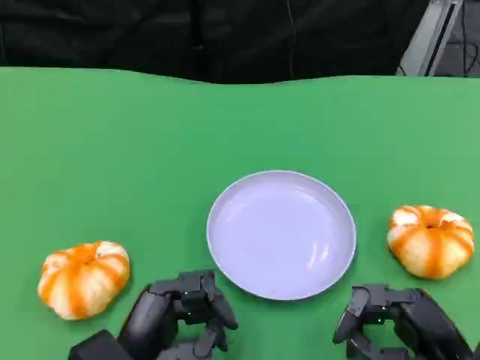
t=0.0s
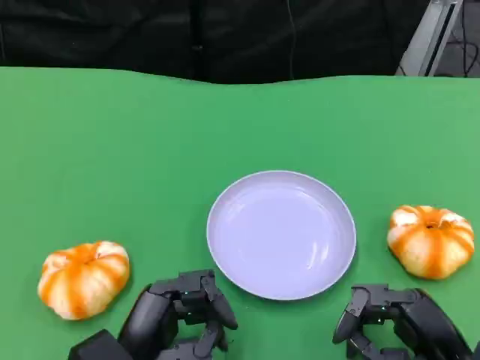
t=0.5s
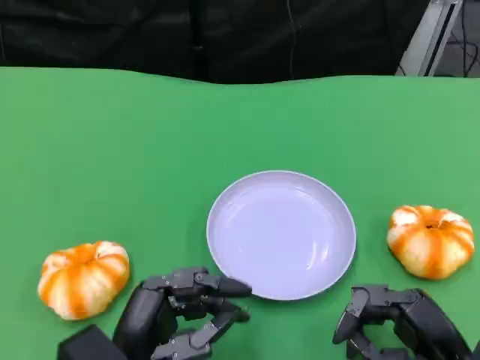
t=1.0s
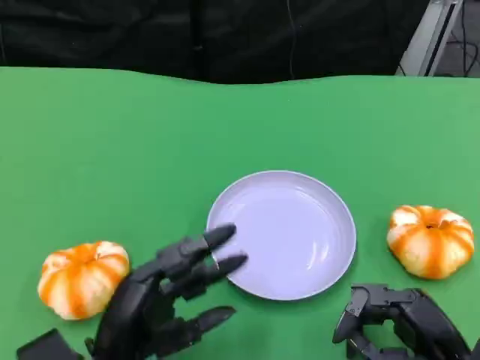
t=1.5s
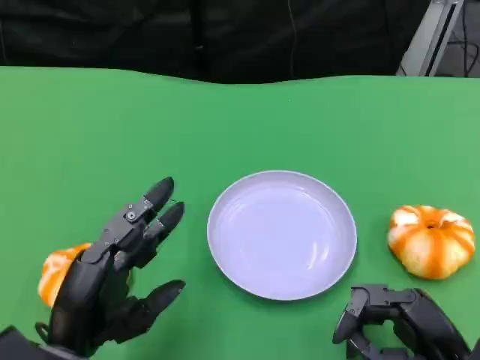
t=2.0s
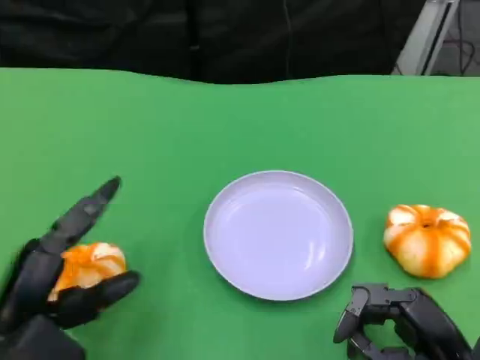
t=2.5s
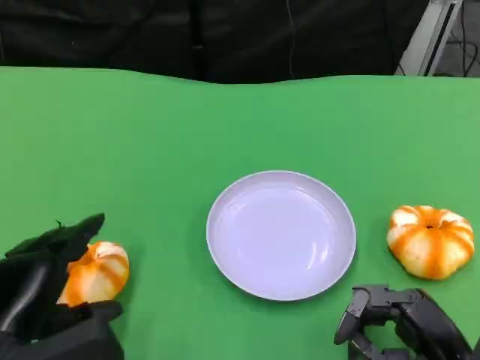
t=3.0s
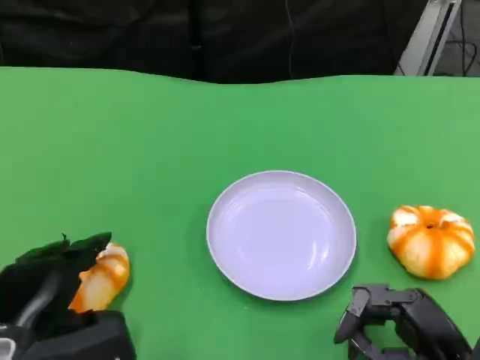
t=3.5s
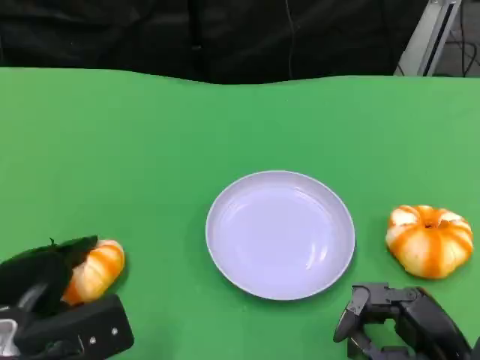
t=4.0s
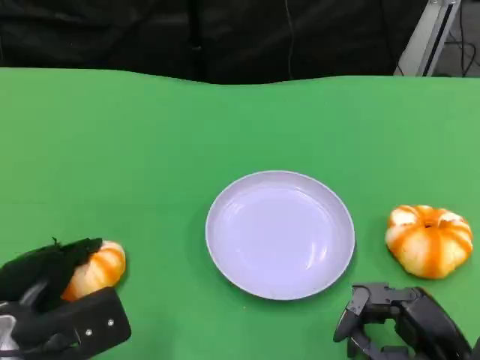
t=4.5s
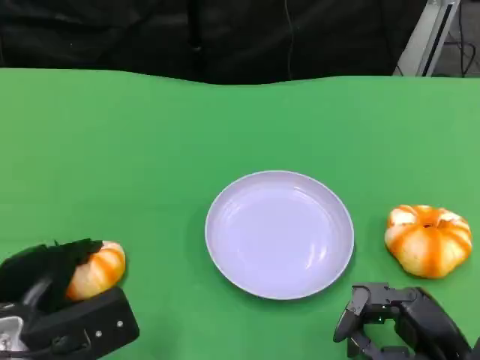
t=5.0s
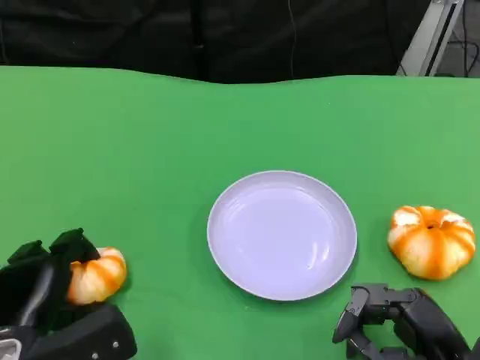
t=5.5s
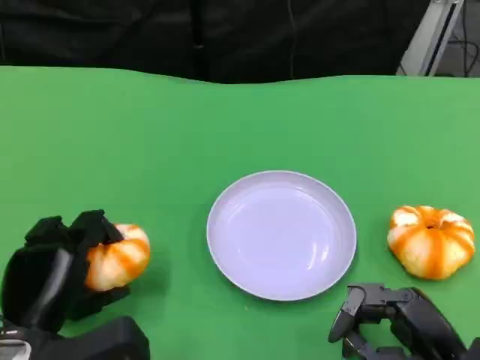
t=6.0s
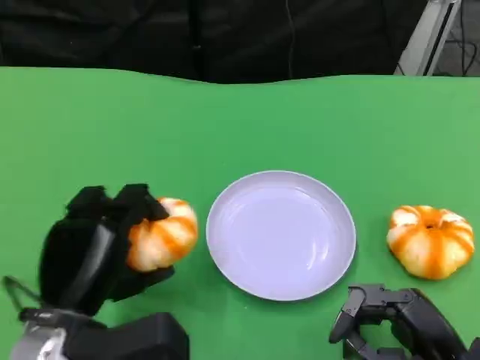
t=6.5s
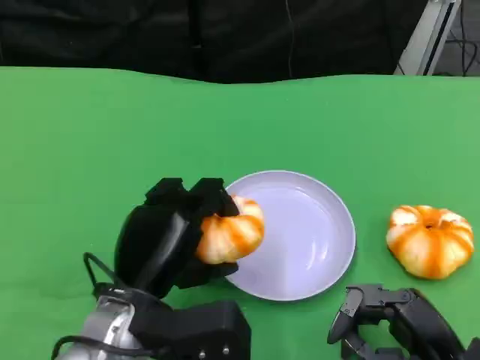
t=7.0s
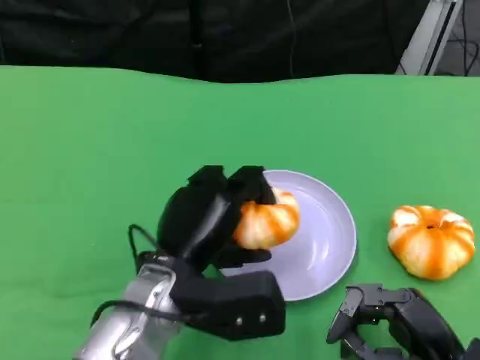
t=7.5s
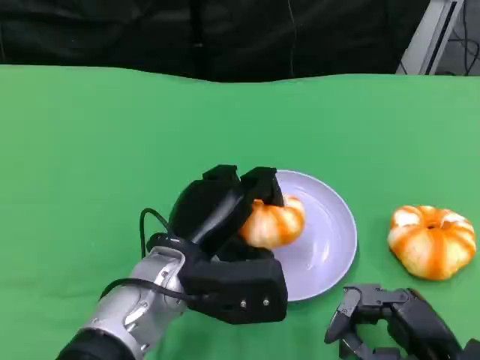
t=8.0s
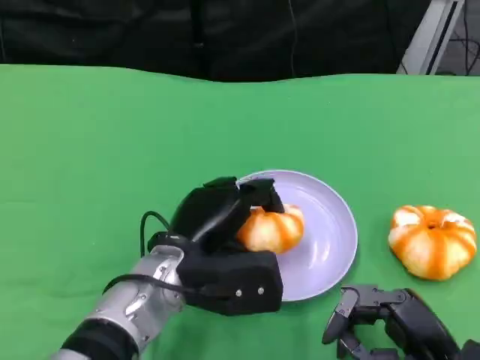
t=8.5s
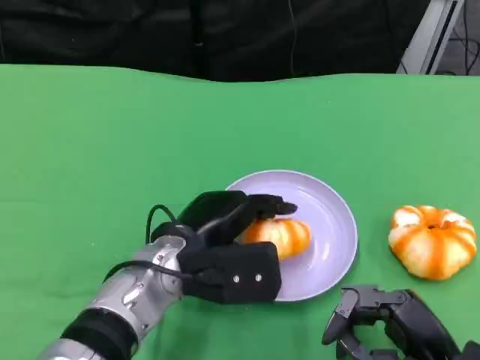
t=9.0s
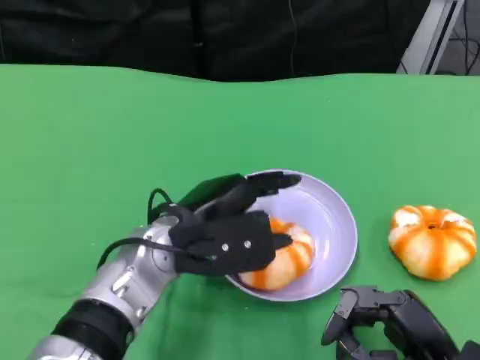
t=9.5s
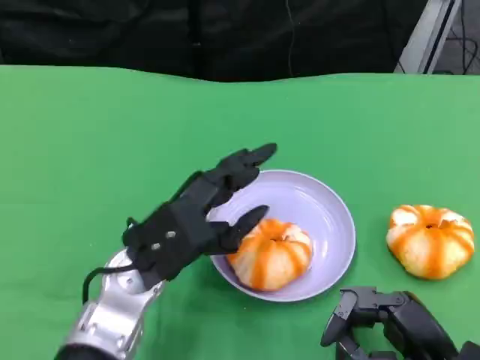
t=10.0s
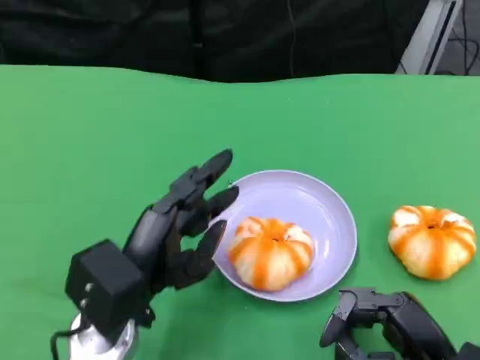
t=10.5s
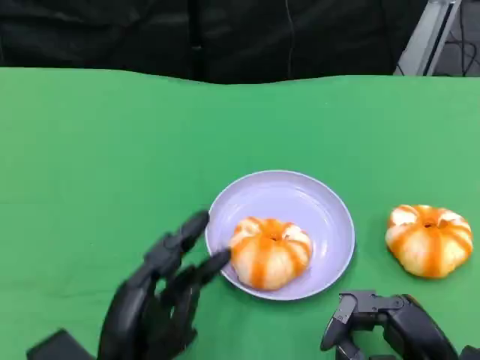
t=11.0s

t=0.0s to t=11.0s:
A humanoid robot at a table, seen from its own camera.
Task of the whole recording: Grasp the bread from the table and place it into the plate.
t=0.0s to t=2.0s: The left hand moves roughly 5 cm.
t=3.5s to t=5.5s: The hands make only small movements.
t=5.5s to t=7.5s: The left hand is displaced to the right and upward by about 15 cm.
t=9.0s to t=11.0s: The left hand is displaced backward and to the left by approximately 15 cm.

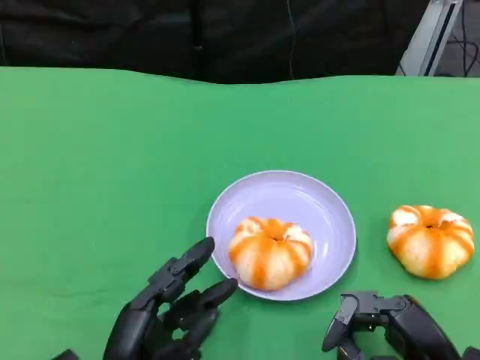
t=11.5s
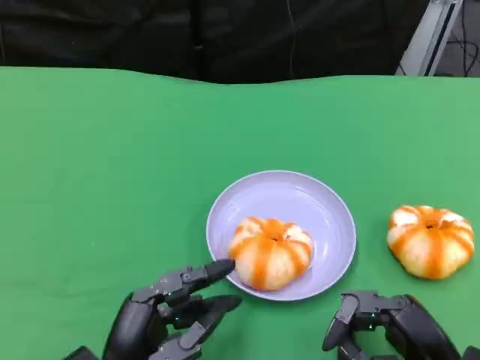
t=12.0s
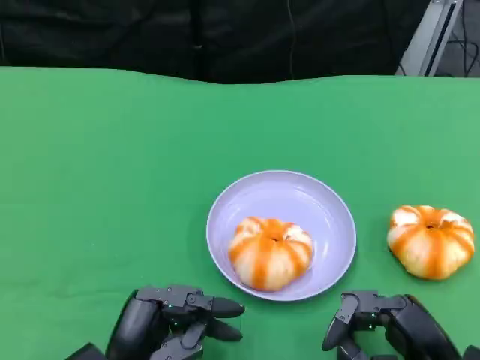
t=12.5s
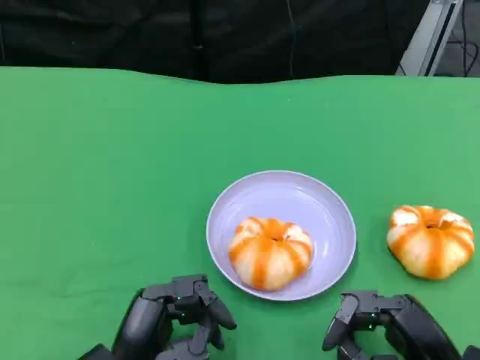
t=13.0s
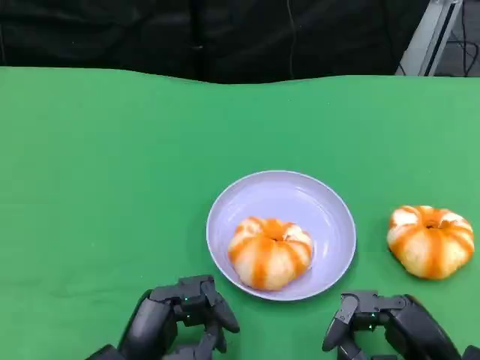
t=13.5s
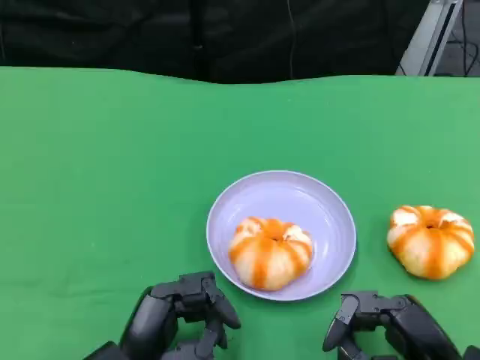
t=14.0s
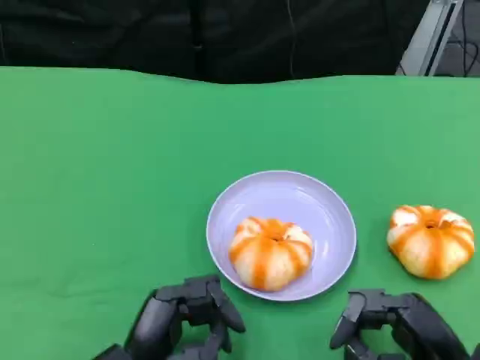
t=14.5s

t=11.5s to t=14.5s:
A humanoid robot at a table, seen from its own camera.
Task of the whole recording: Grasp the bread from the table and place it into the plate.
t=11.5s to t=13.0s: The hands stay close to where they were, moving slightly.
t=13.0s to t=14.5s: Neither hand changes place.

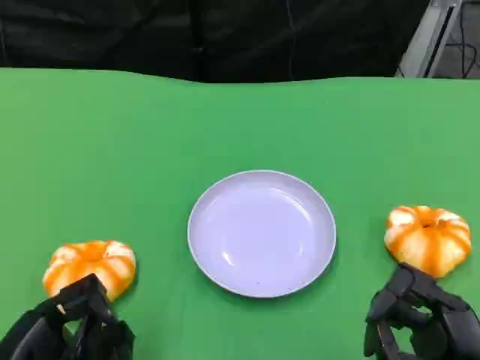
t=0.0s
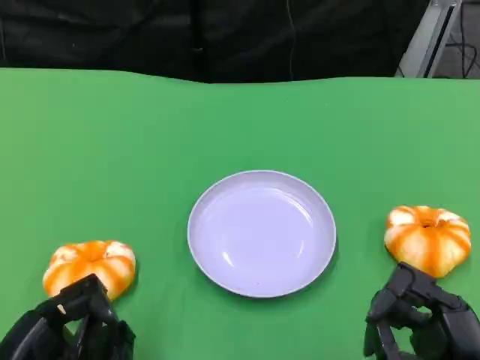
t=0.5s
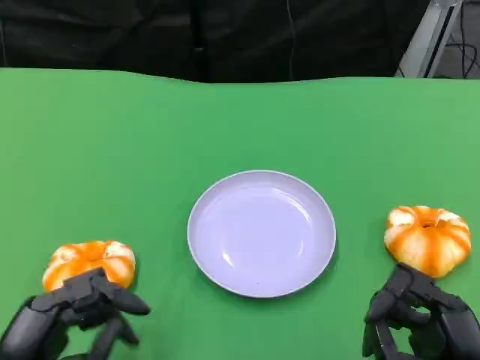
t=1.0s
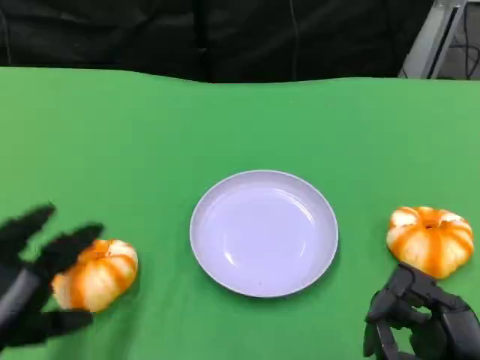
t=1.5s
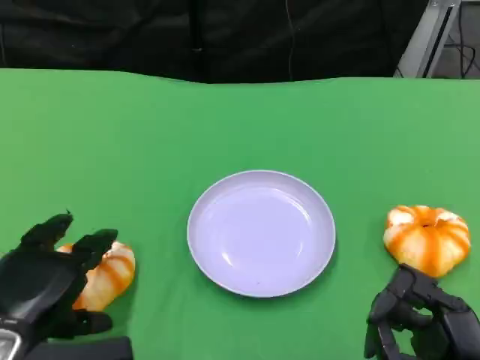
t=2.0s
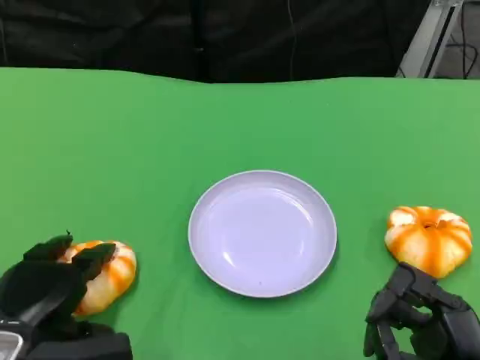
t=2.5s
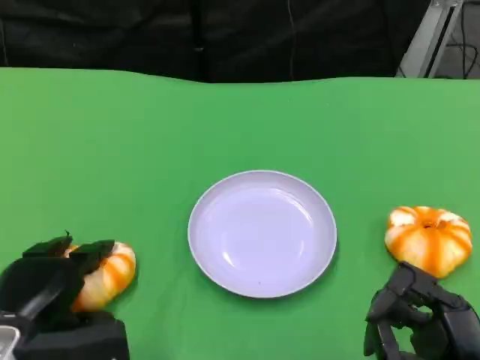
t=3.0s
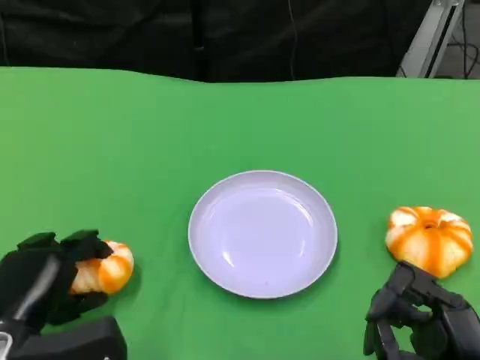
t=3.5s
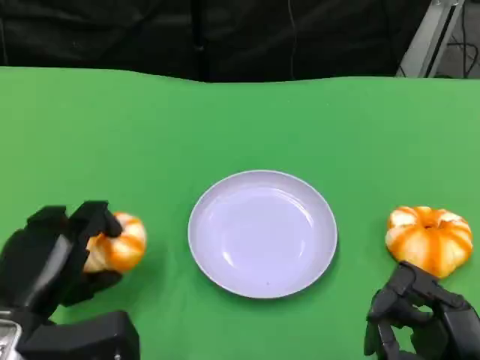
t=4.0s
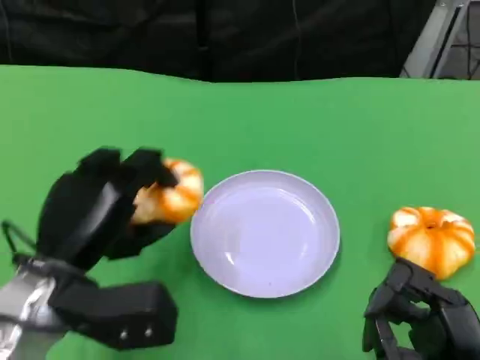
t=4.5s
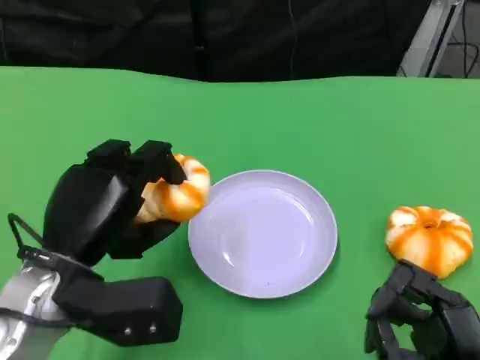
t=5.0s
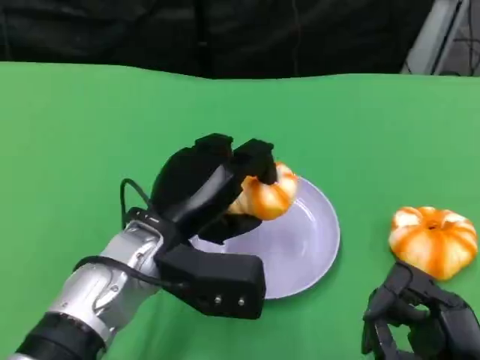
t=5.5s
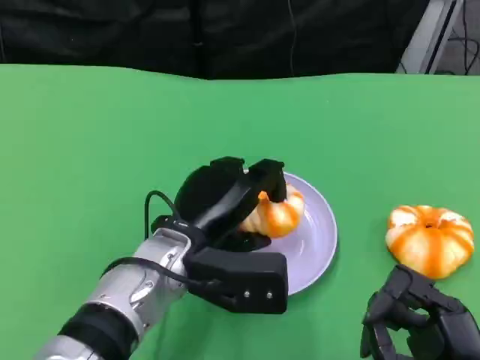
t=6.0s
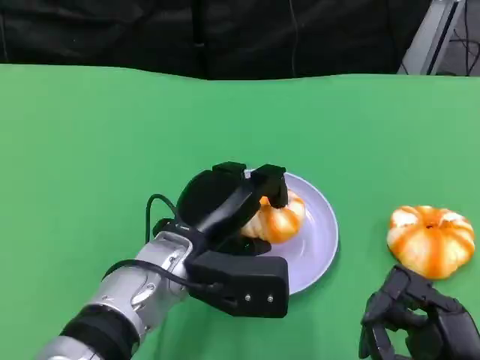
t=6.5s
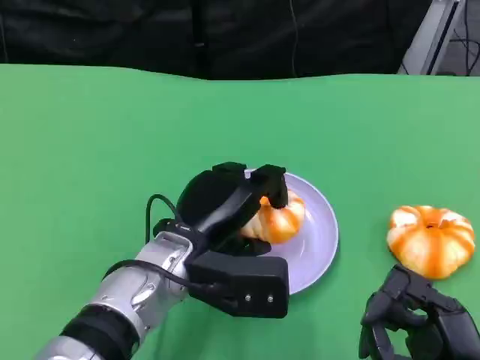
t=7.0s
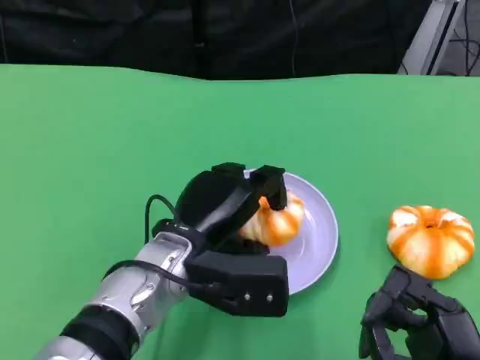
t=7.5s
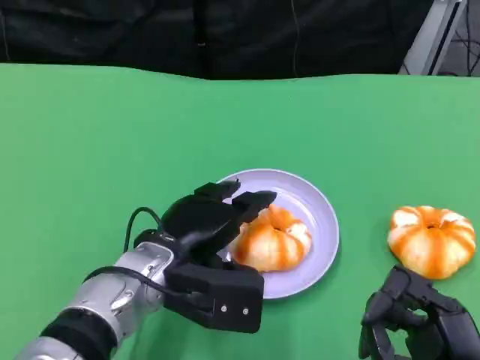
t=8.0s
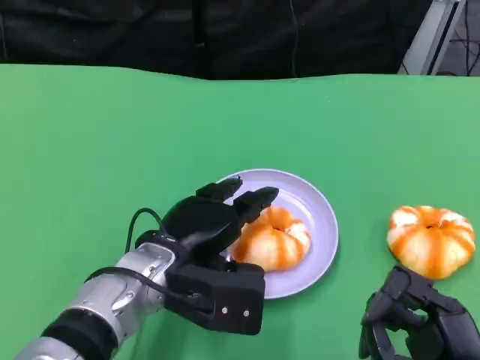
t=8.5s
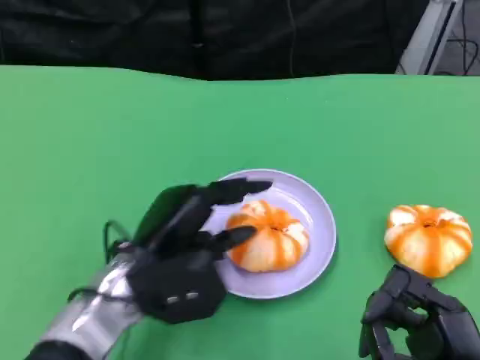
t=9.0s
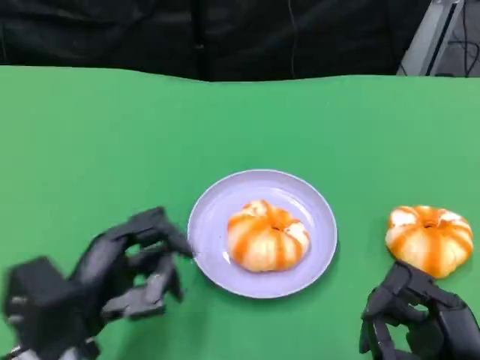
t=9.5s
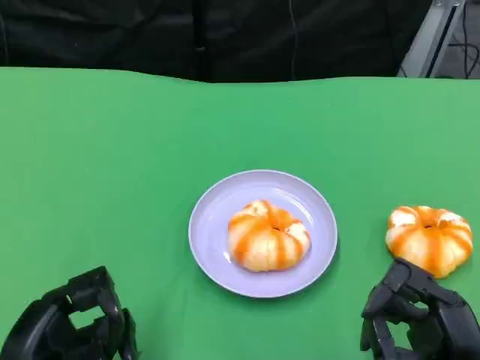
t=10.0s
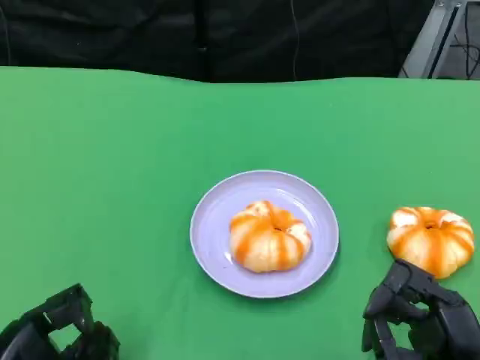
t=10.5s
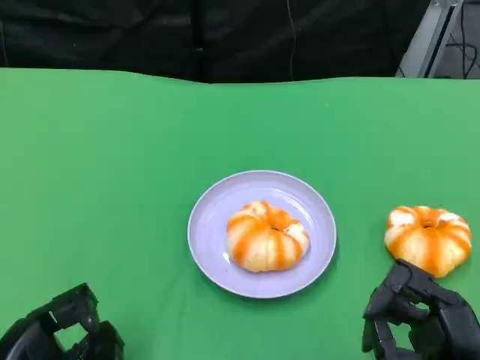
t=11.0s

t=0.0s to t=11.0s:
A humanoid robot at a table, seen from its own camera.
Task of the whole recording: Grasp the bread from the table and place it into the plate.
t=0.0s to t=2.0s: The left hand heads forward, covering roughly 5 cm.
t=2.0s to t=3.5s: The hands make only small movements.
t=3.5s to t=5.5s: The left hand travels to the right, upward and forward by about 15 cm.
t=7.5s to t=9.0s: The left hand heads to the left, covering approximately 5 cm.
t=9.0s to t=11.0s: The left hand moves backward and to the left, approximately 15 cm.

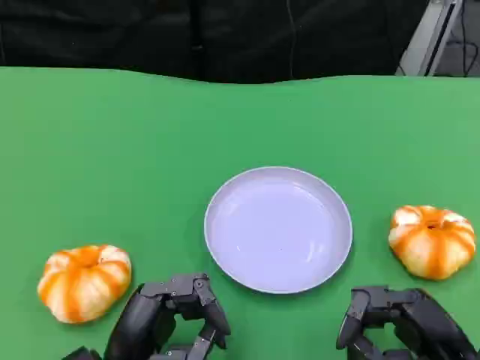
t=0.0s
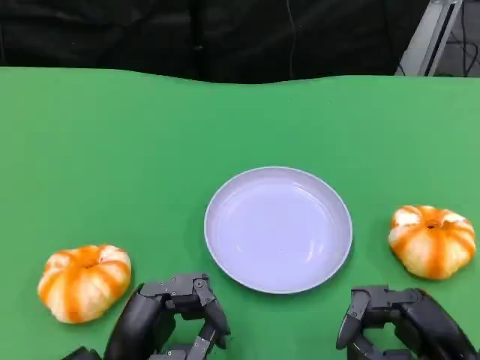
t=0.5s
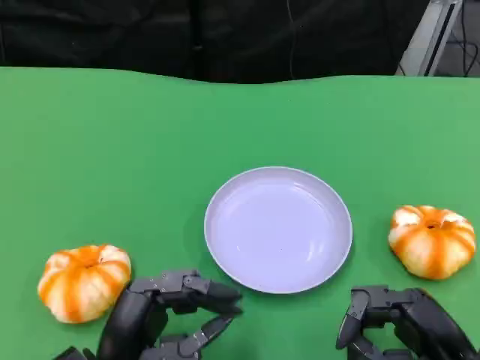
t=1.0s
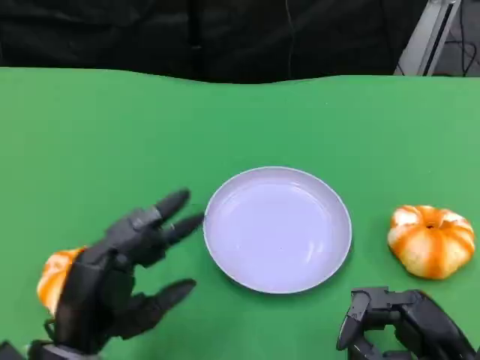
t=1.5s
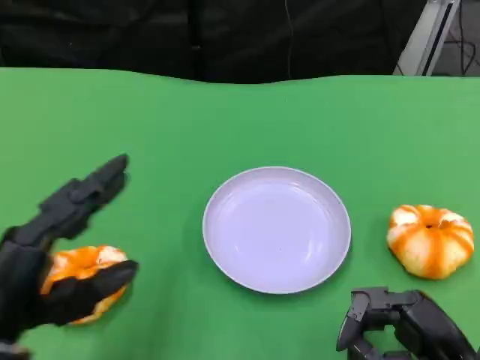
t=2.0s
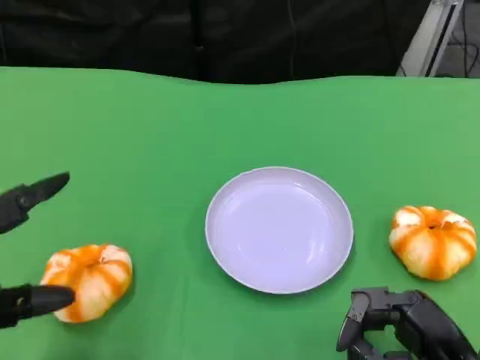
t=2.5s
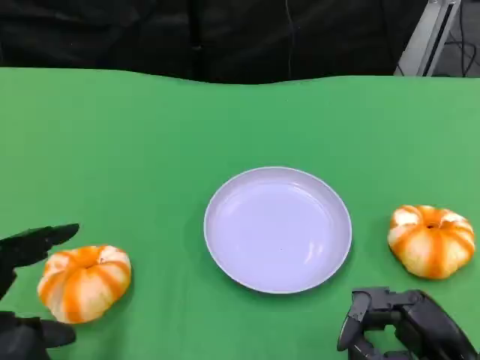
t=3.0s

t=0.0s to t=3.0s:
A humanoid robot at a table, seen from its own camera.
Task of the whole recording: Grasp the bread from the table and place it into the plate.
t=0.0s to t=1.5s: The left hand shifts by some 5 cm.
t=1.5s to t=3.0s: The left hand goes some 10 cm to the left and upward.
